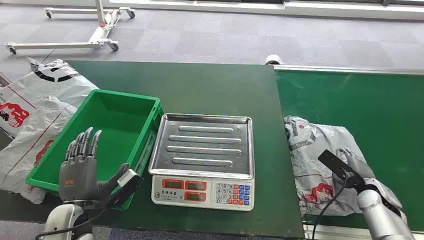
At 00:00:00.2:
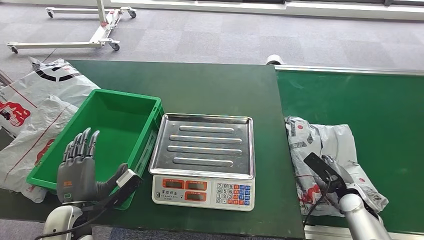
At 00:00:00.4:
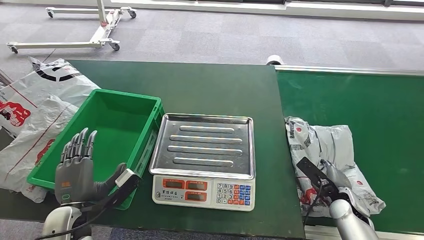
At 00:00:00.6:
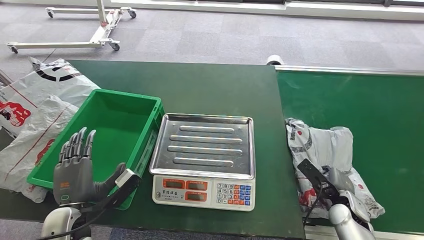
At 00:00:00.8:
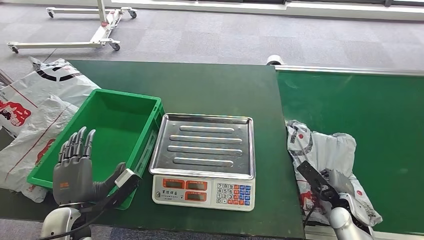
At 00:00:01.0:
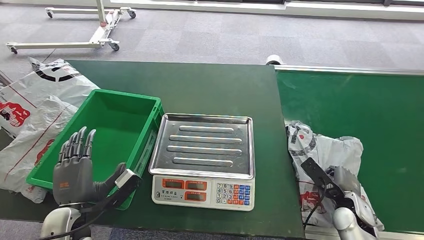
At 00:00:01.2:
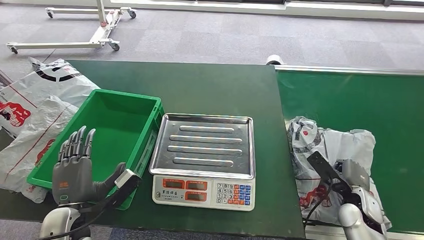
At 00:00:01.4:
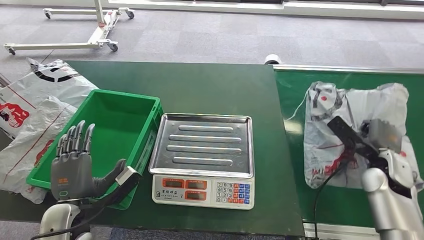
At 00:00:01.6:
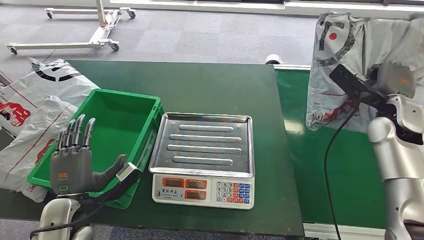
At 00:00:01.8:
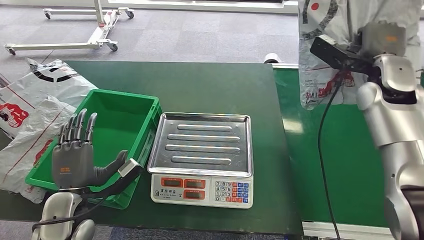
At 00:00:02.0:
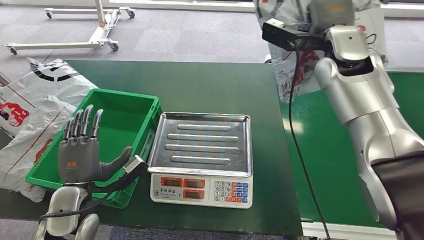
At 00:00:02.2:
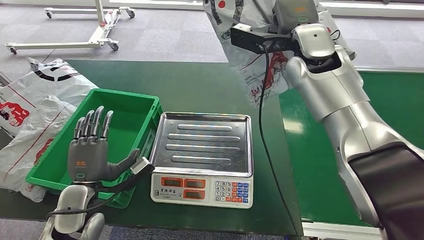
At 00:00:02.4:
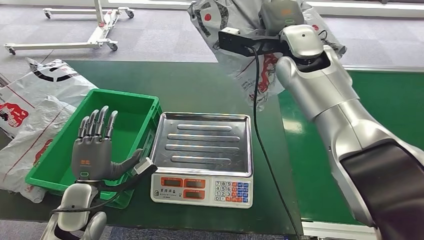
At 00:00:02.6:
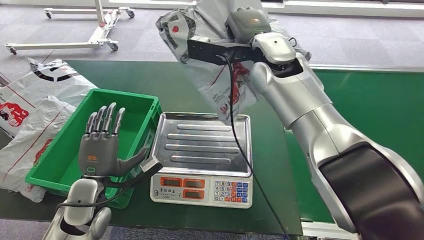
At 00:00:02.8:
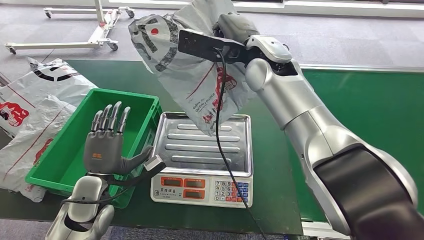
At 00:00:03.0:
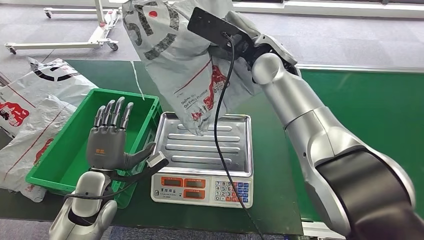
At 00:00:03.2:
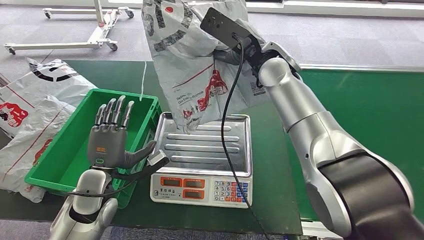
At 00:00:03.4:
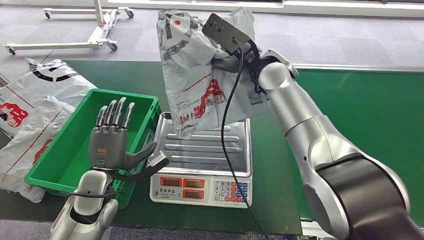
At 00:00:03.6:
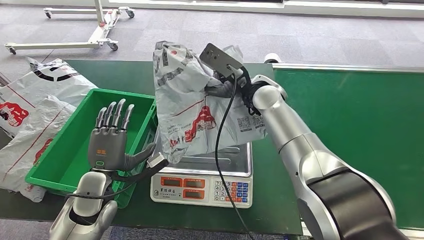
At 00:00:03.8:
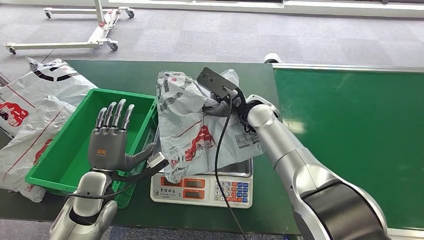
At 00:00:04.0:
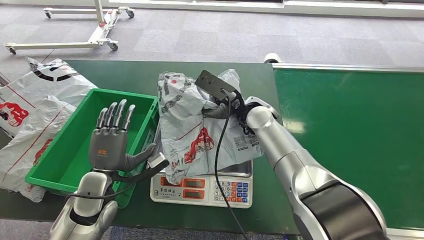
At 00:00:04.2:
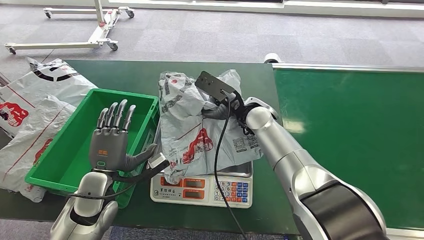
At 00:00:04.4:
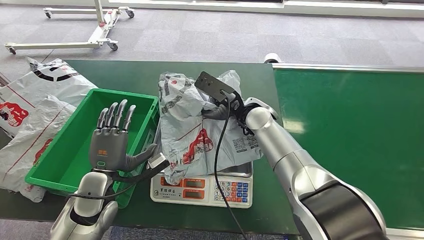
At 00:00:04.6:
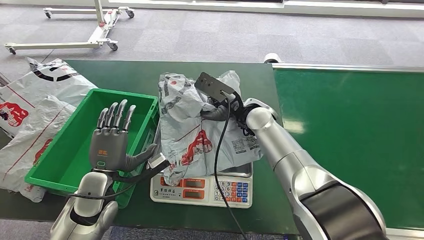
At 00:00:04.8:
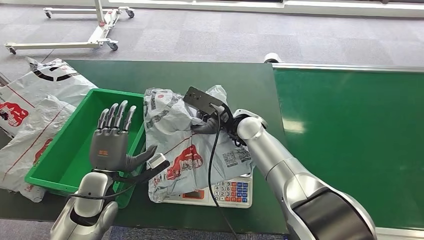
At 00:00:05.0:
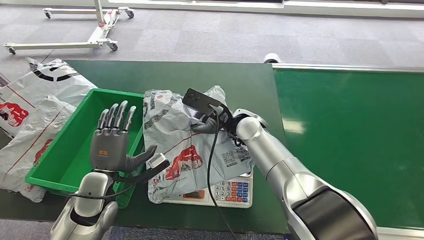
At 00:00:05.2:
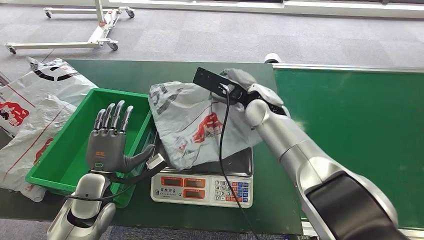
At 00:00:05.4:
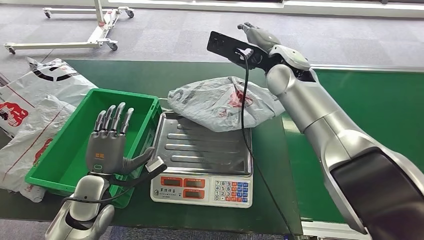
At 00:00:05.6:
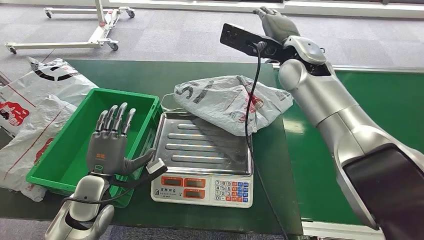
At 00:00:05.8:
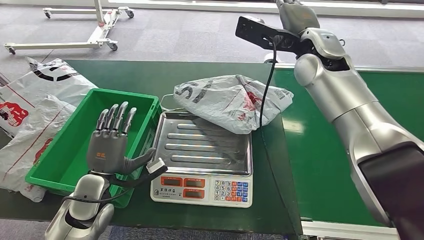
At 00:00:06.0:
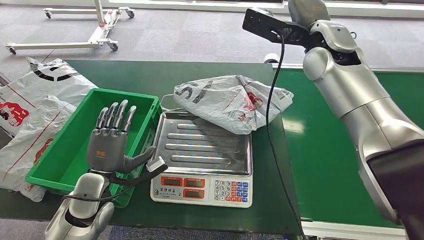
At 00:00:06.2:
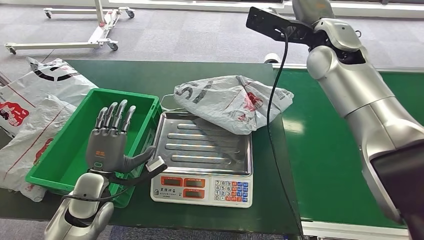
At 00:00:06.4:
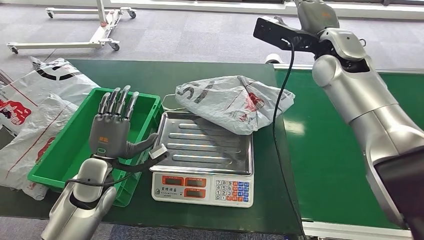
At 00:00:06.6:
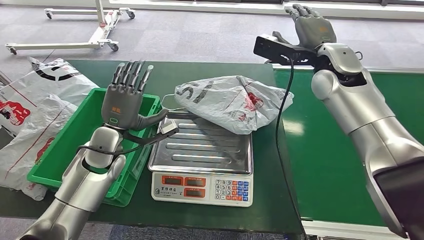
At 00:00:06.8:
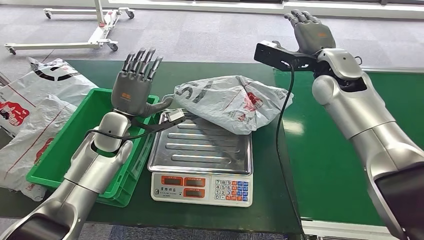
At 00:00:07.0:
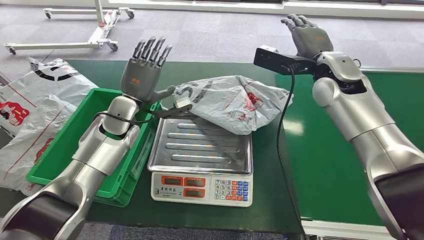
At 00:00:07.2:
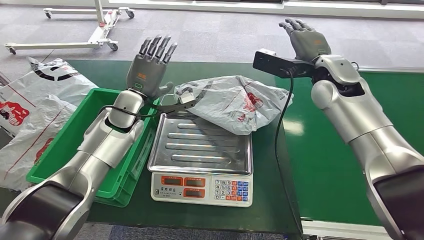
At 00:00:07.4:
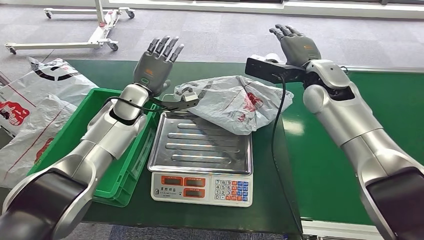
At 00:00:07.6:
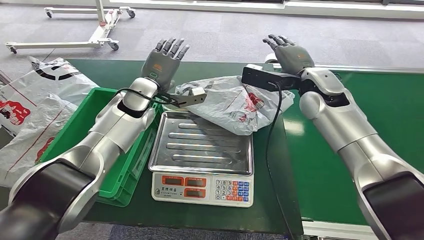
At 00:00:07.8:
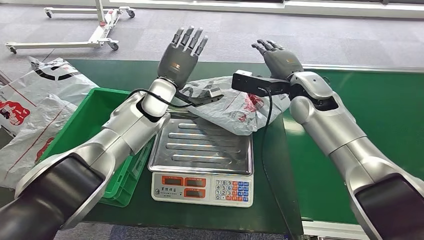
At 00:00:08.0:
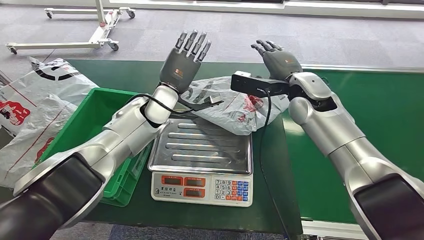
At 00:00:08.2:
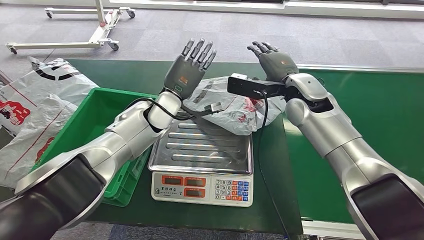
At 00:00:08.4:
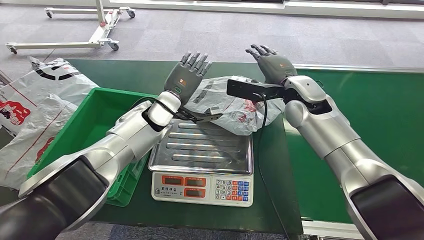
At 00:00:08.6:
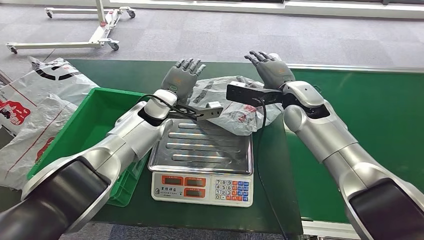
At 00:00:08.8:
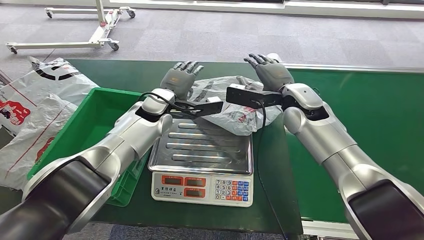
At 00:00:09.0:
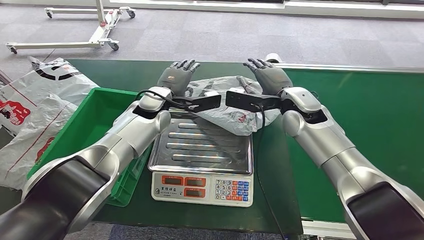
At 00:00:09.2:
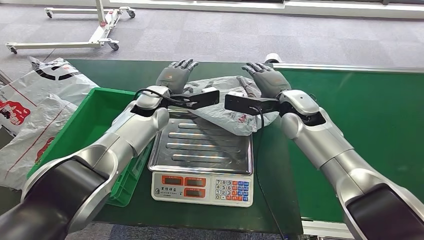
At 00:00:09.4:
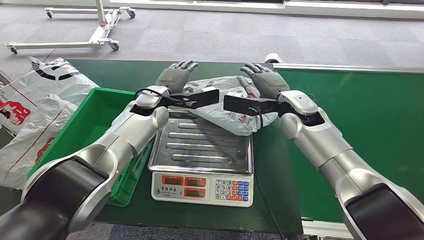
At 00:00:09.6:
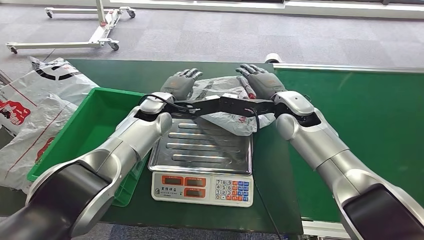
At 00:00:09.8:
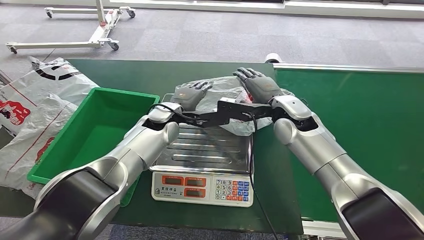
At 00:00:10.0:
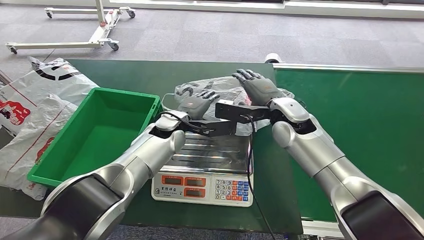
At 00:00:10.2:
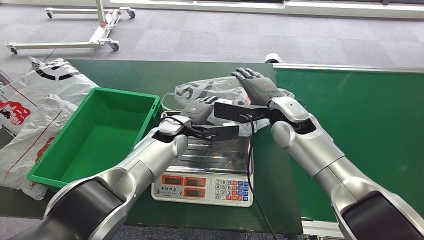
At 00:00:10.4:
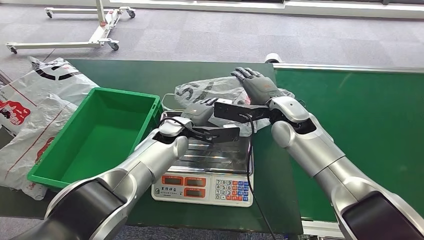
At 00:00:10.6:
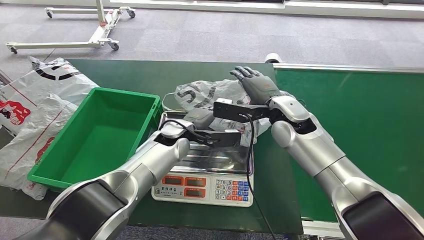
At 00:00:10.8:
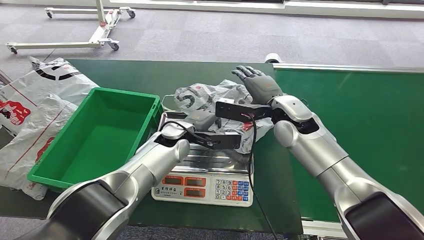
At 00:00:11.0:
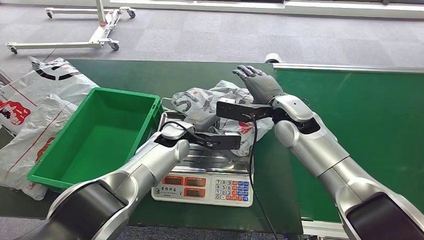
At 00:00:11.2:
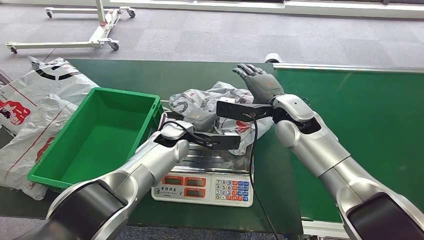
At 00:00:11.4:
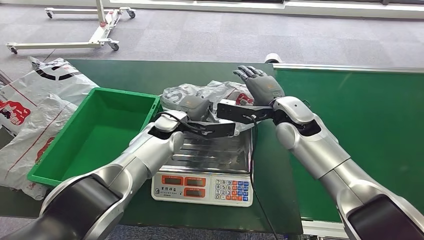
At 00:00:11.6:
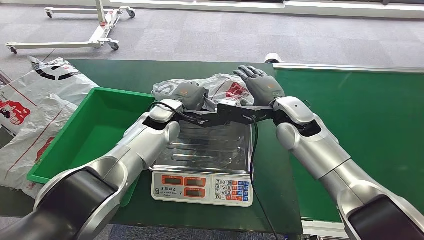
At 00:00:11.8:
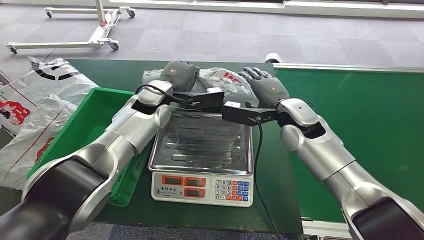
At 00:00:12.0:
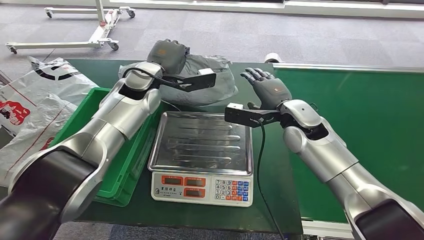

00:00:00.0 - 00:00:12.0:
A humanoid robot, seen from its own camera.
Step, 00:00:00.0 - 00:00:02.2: Pick up the package from the conveyor belt.
Step, 00:00:02.4 - 00:00:04.8: Place the package onto the inbound machine.

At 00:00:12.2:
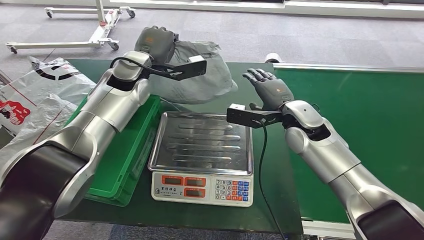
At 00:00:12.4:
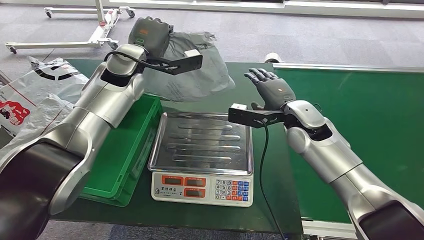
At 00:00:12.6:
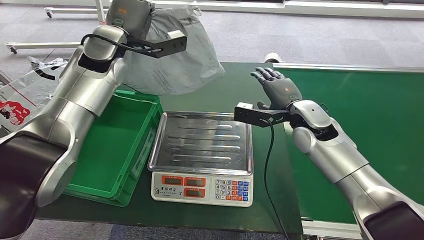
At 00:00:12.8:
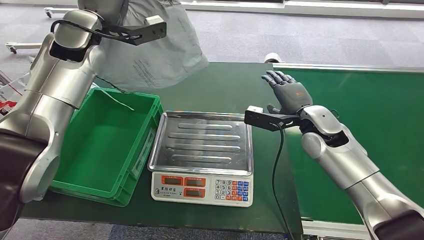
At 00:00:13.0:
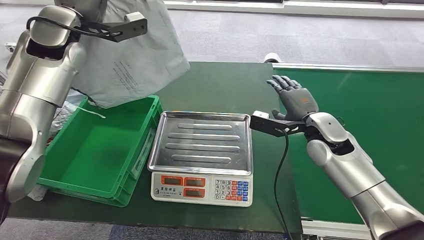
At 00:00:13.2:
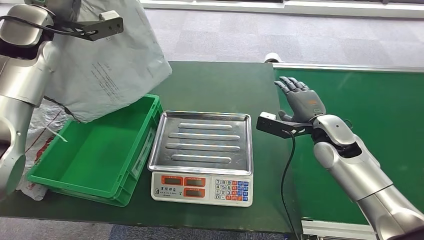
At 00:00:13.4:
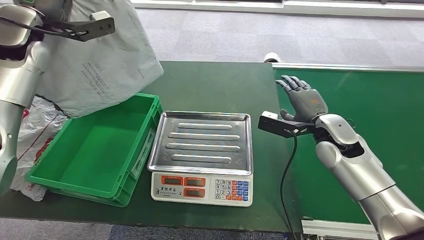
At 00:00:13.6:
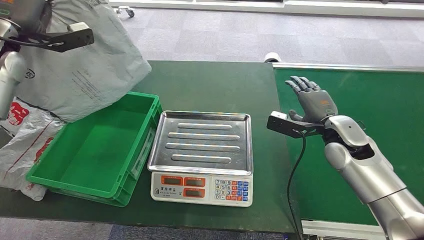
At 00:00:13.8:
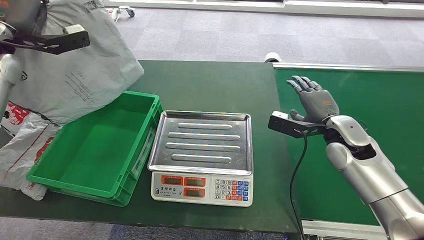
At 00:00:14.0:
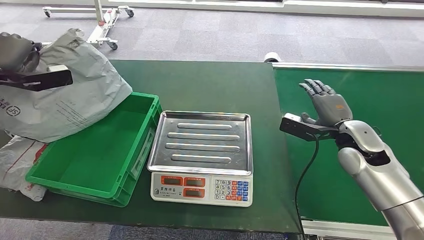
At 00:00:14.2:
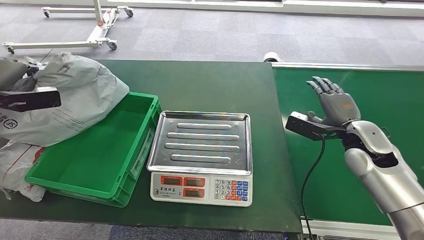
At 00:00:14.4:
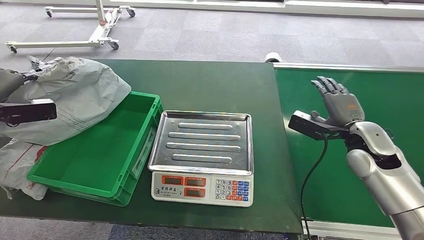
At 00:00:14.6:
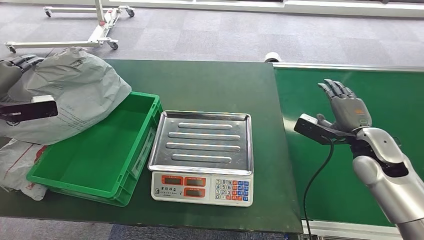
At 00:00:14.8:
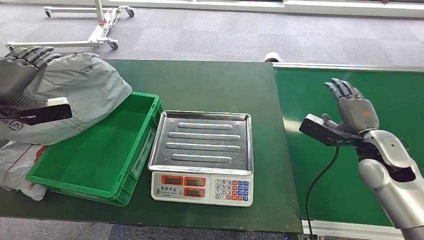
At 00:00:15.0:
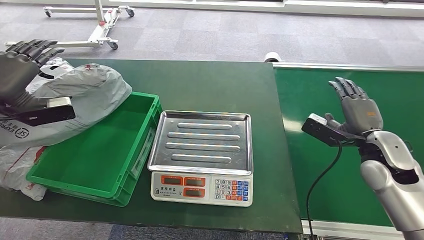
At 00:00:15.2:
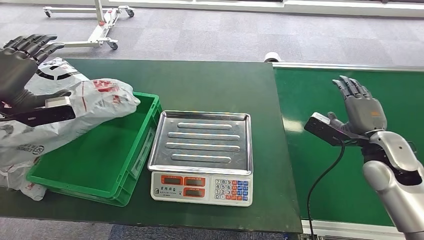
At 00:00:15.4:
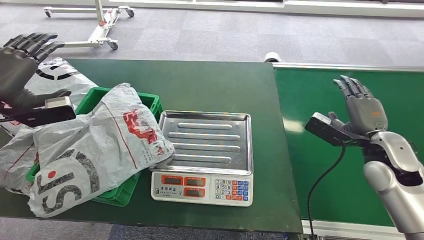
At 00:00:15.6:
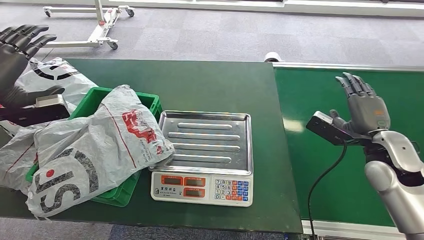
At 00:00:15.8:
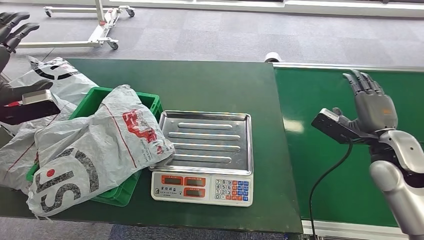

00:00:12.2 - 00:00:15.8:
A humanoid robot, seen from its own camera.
Step, 00:00:12.2 - 00:00:14.8: Pick up the package from the inbound machine.
Step, 00:00:15.0 - 00:00:15.8: Place the package into the parcel locker.
